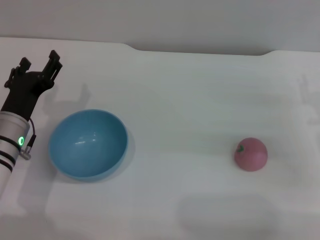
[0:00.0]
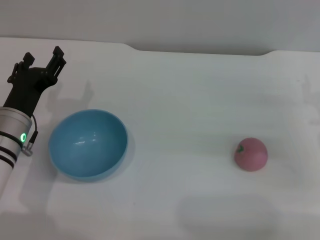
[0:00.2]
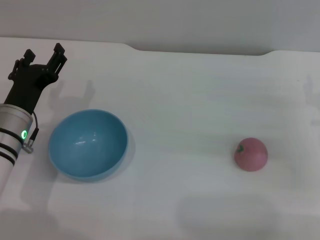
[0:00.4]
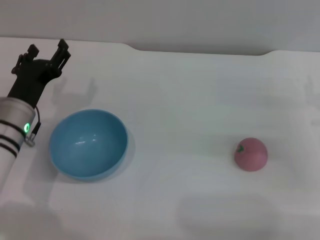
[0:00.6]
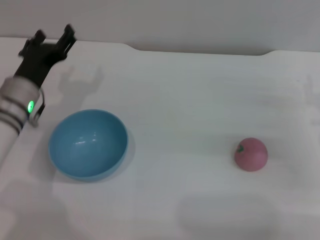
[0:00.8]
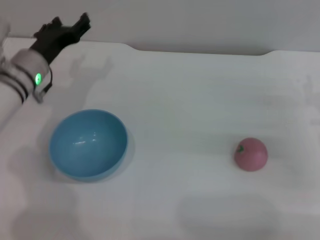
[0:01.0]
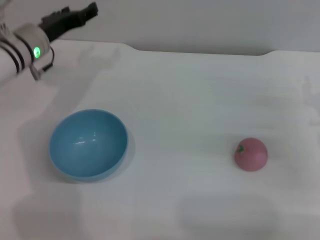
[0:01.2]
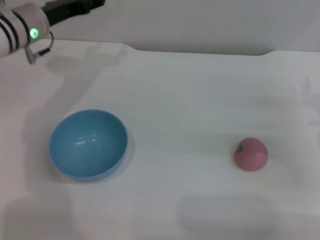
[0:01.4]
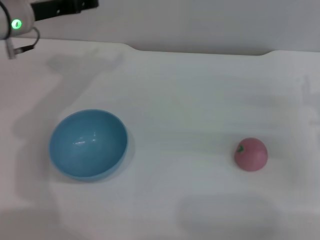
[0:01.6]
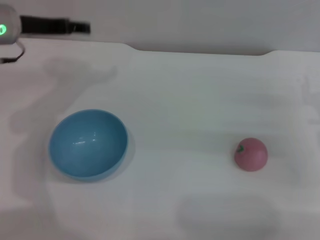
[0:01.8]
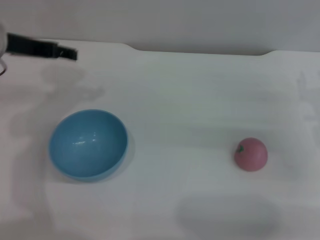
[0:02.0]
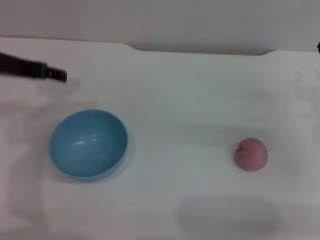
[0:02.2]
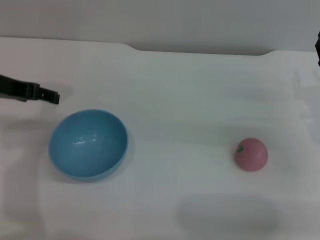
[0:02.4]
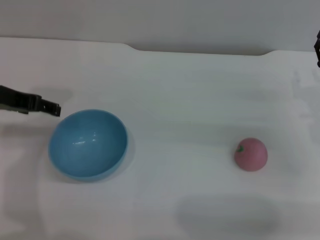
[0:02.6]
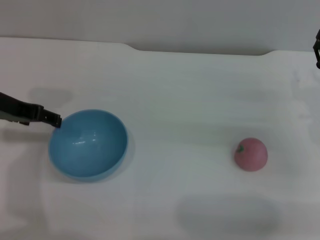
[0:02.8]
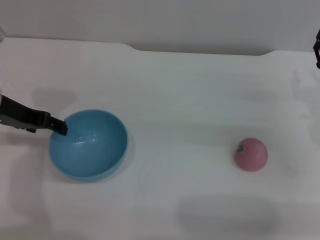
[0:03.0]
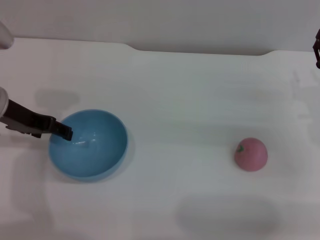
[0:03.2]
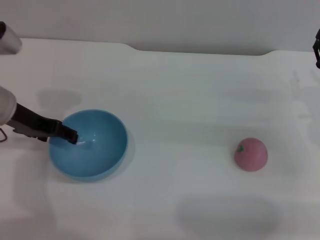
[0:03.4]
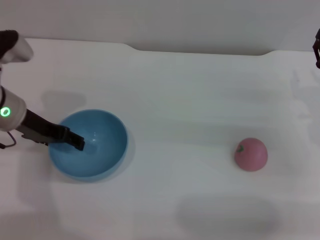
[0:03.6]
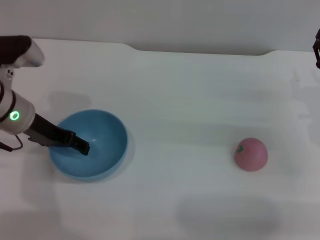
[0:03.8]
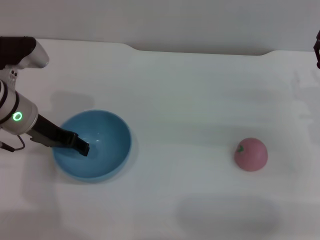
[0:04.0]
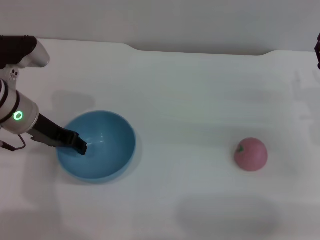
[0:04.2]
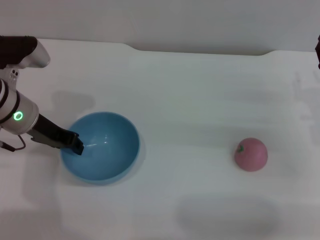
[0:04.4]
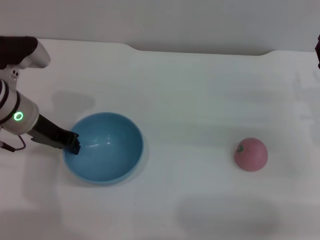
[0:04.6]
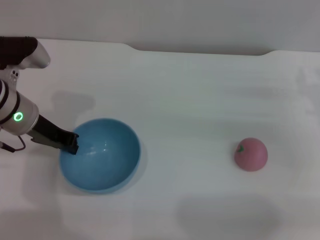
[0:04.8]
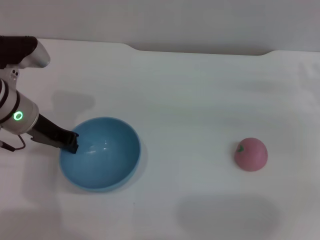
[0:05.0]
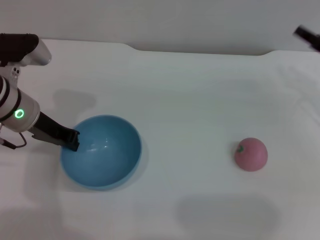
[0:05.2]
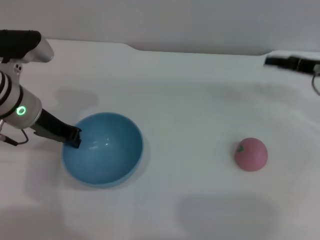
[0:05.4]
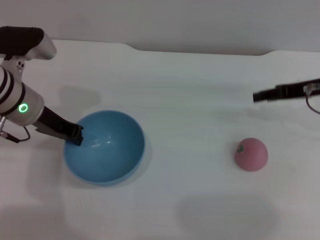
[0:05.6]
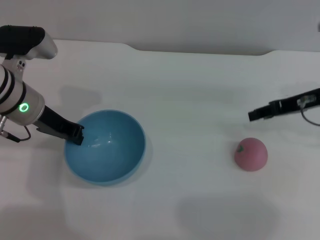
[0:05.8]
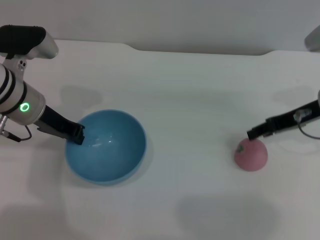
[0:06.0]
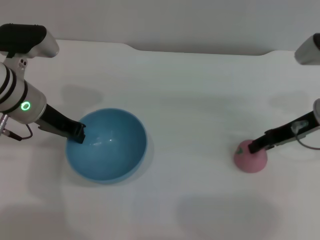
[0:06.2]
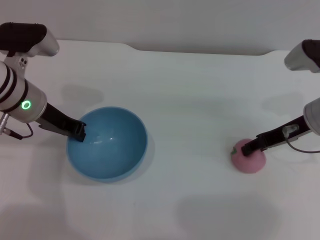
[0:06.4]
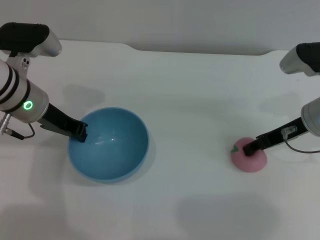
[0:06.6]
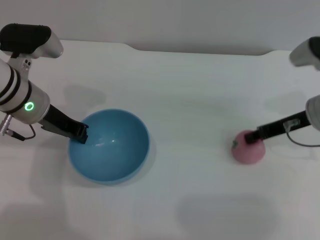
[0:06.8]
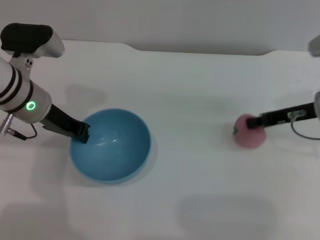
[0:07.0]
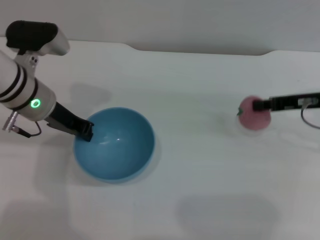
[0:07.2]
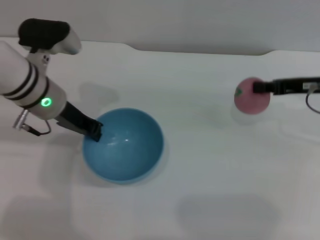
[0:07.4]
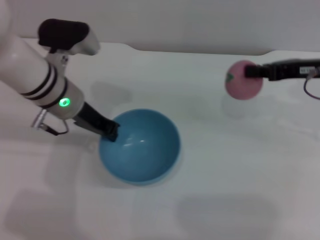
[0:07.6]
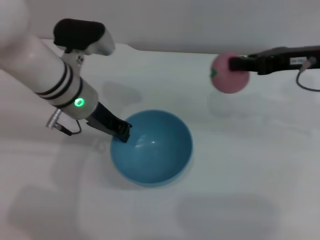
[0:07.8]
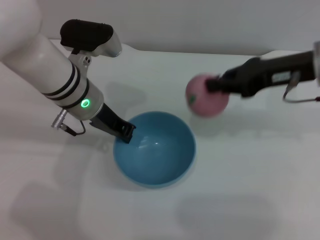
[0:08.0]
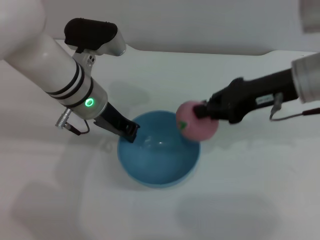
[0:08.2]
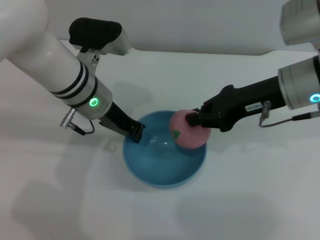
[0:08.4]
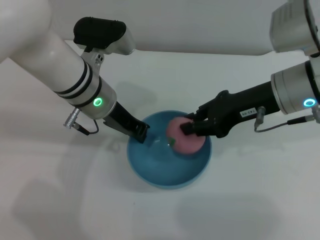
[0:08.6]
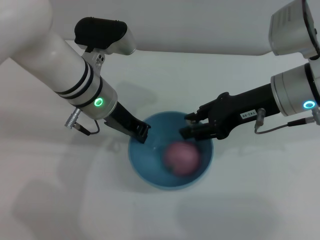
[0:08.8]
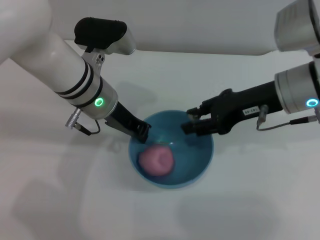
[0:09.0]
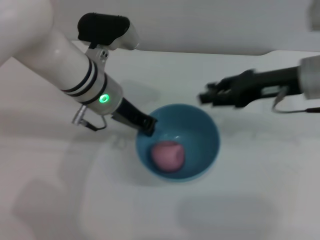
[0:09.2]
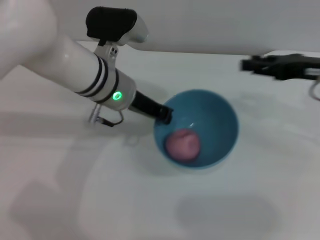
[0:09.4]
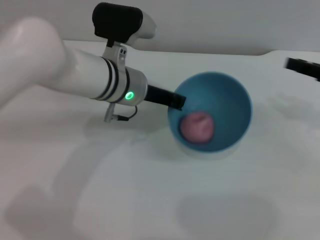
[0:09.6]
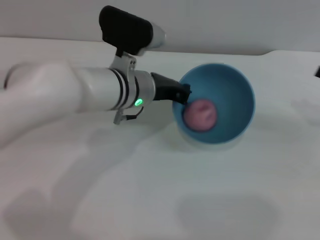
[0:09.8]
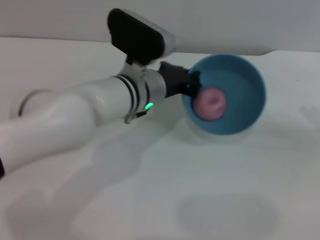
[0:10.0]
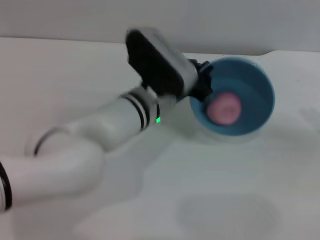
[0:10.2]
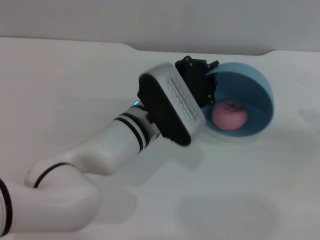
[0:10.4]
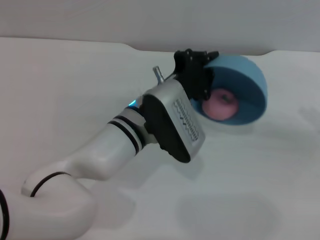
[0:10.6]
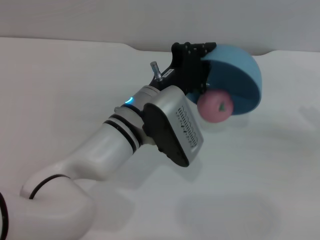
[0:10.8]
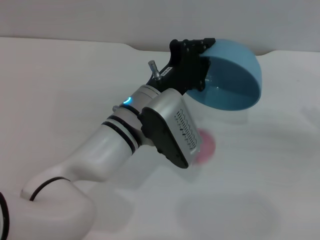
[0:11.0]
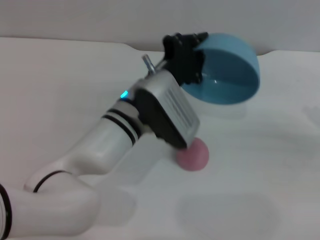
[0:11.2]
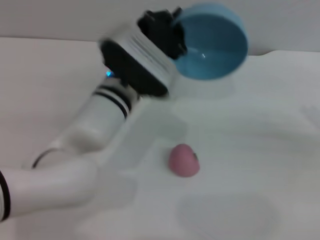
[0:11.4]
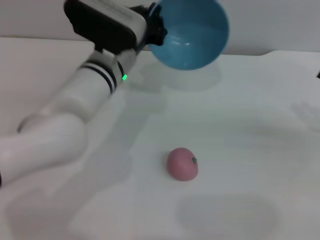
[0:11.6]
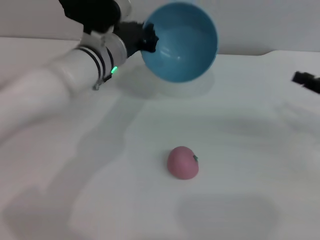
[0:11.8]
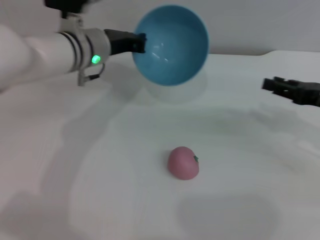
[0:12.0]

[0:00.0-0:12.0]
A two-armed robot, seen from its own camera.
Task of the whole recording: put the peach into the blue bowl and pour it out repeatedly.
Step, 0:00.0 to 0:05.2: Pick up the bowl with the left gripper.
Step, 0:05.4 to 0:07.4: Pick up the peach with the right gripper.
Step, 0:07.6 to 0:09.0: Place the peach into the bowl.
Step, 0:09.2 to 0:11.2: Pour the peach out of bowl.
0:00.0 to 0:01.6: The left gripper shifts approximately 20 cm upward and forward.
0:01.6 to 0:03.0: The left gripper moves backward, approximately 10 cm.
0:03.0 to 0:04.4: The left gripper moves approximately 5 cm, and closes its fingers.
0:04.4 to 0:06.0: The right gripper is displaced upward by about 5 cm. The left gripper closes its fingers.
0:06.0 to 0:07.6: The right gripper closes up, while the left gripper shifts roughly 5 cm to the right.
0:07.6 to 0:09.0: The right gripper is displaced to the left by approximately 10 cm, and opens.
0:09.0 to 0:10.4: The left gripper heads to the right, downward and backward, covering about 10 cm; the right gripper shifts some 20 cm to the right.
0:10.4 to 0:12.0: The left gripper goes some 15 cm to the left, forward and upward. The right gripper travels to the left by about 10 cm.

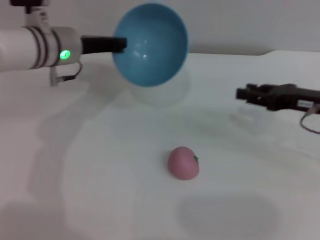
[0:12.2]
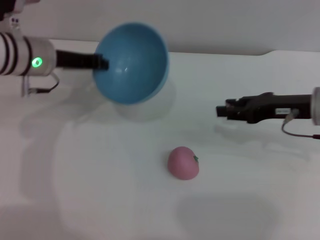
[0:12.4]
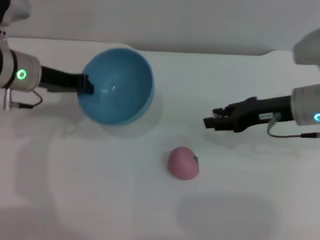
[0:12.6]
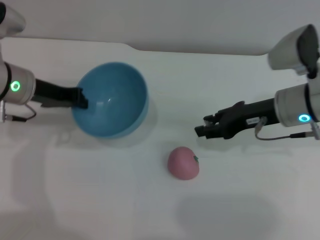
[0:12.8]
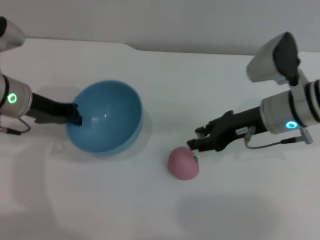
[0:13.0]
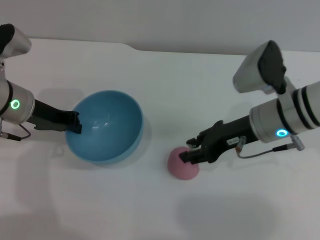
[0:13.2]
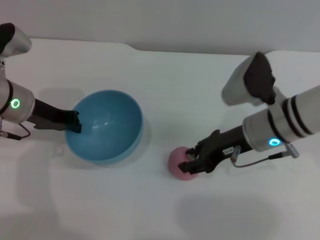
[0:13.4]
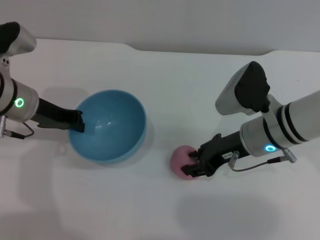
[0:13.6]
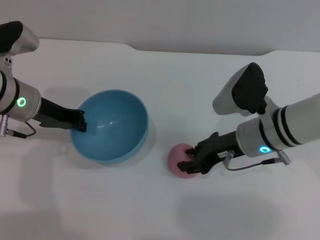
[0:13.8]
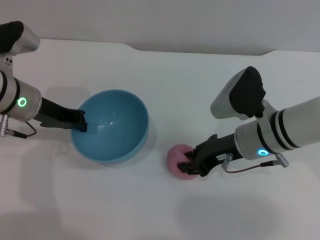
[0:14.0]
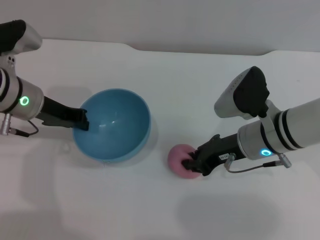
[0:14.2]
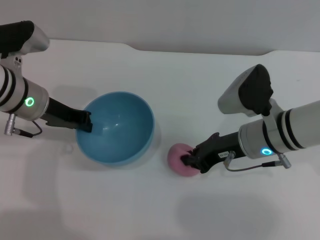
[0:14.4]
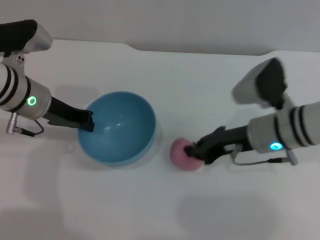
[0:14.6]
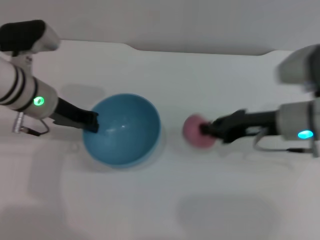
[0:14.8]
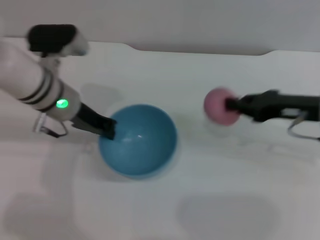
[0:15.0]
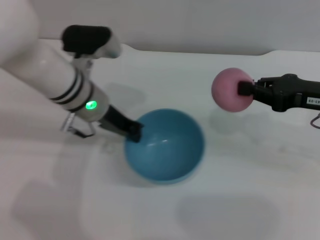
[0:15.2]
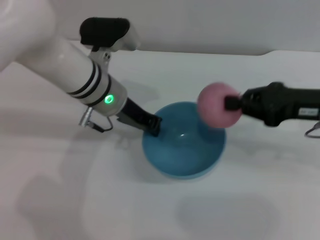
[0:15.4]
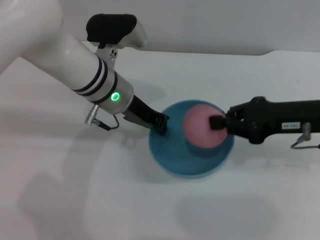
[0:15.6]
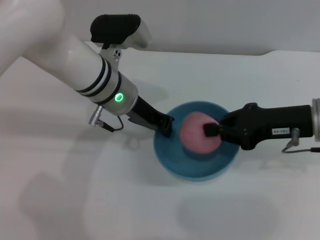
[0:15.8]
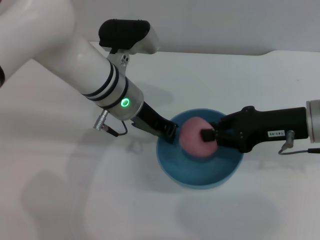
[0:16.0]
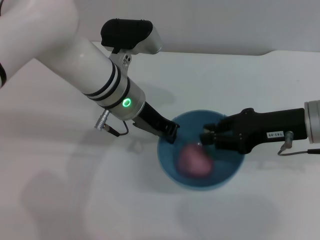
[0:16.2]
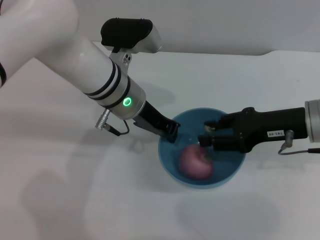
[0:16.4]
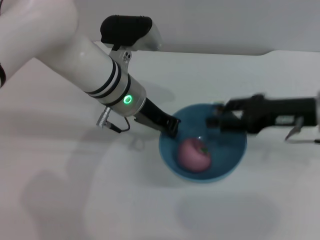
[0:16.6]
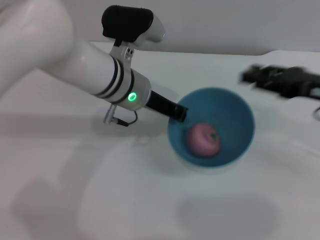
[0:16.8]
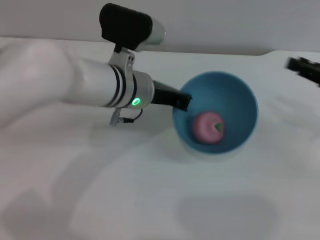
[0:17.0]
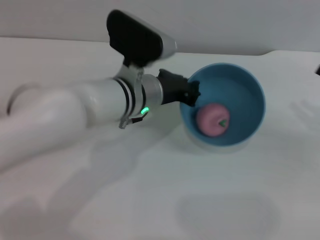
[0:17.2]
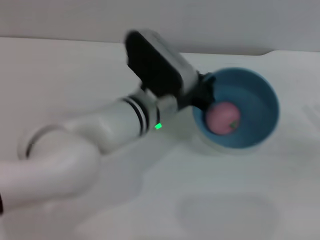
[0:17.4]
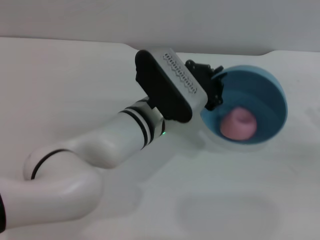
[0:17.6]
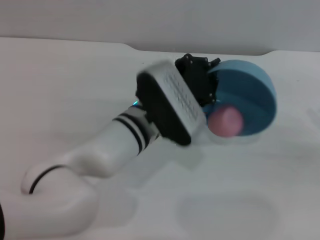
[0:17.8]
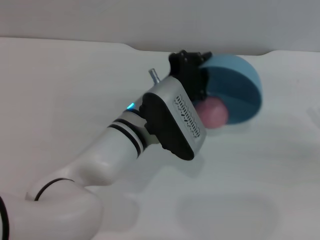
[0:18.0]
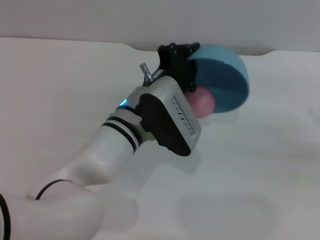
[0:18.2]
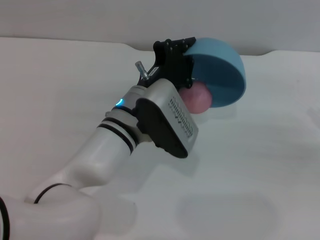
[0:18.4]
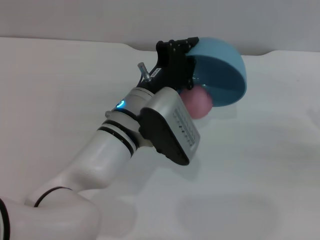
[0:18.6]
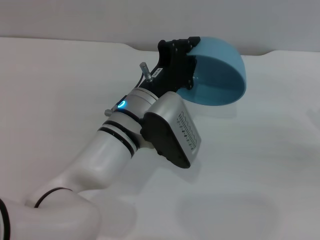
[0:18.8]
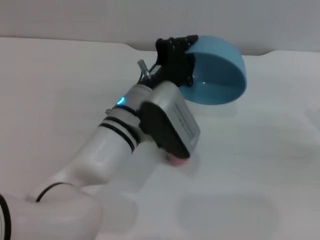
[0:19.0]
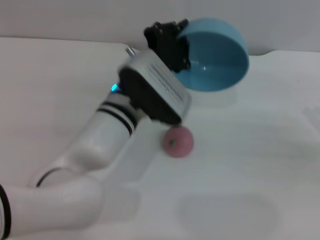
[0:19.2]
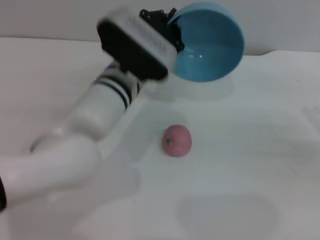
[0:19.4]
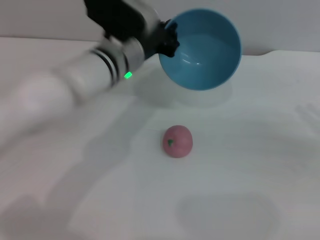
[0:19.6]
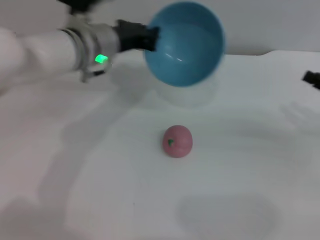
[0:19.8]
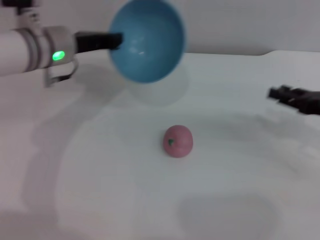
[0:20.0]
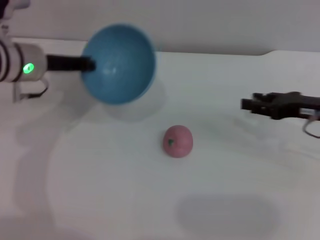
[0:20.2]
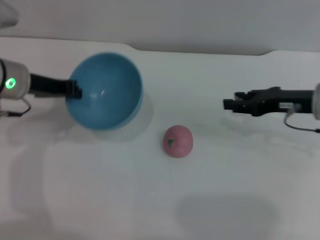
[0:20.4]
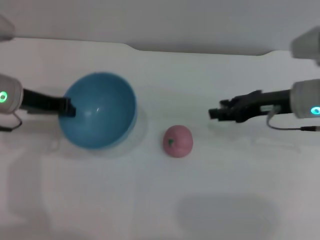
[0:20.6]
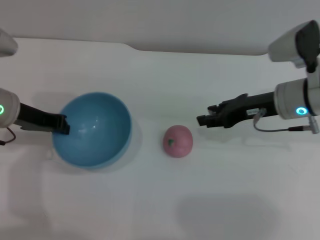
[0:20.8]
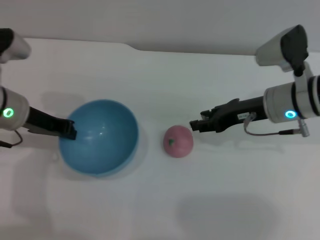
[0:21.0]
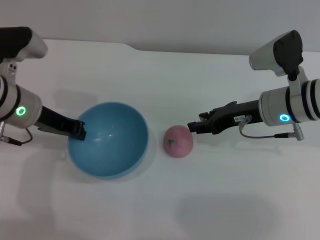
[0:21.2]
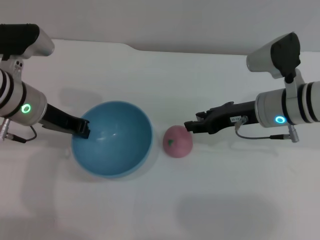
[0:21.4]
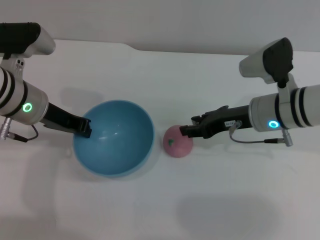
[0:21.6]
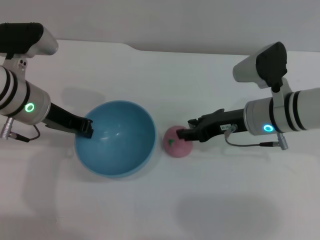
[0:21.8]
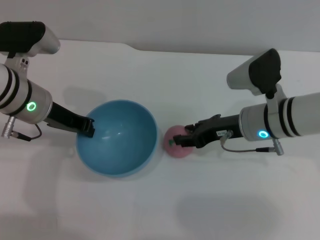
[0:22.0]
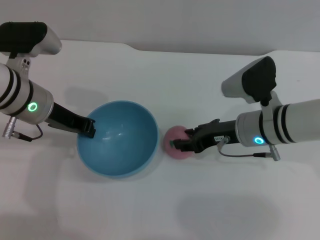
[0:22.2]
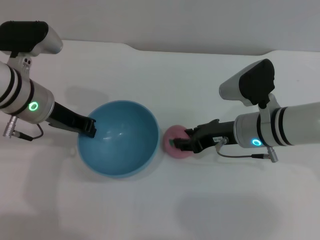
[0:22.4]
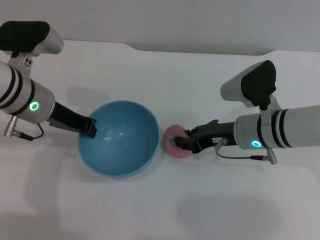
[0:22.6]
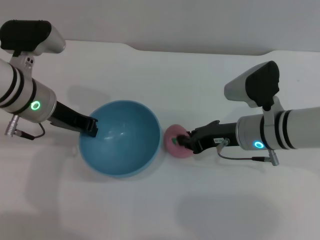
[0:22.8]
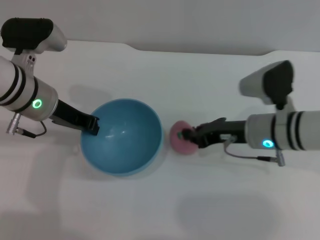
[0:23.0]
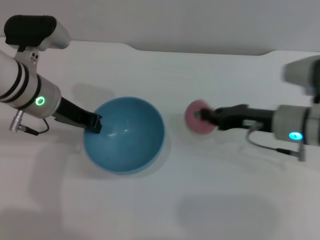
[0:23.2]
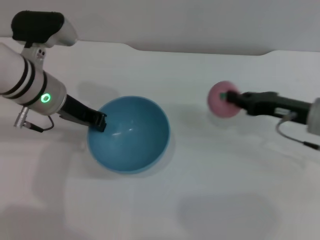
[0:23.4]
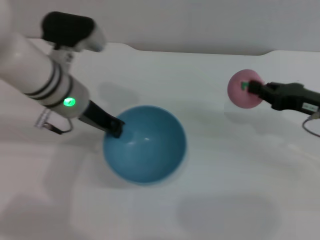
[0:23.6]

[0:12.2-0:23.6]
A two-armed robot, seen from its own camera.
Task of the whole recording: put the peach into the blue bowl and pour it out repeatedly.
Step, 0:12.2 to 0:14.6: Pick up the peach with the right gripper.
Step, 0:15.0 to 0:17.0: Place the peach into the bowl.
Step, 0:17.2 to 0:18.8: Pour the peach out of bowl.
Step, 0:19.2 to 0:23.2: Pick up the peach with the right gripper.
0:12.2 to 0:13.6: The right gripper travels to the left by approximately 15 cm. The left gripper moves backward, about 5 cm.
0:13.6 to 0:15.0: The right gripper moves to the right, approximately 10 cm, and closes, while the left gripper shifts approximately 5 cm to the right.
0:15.0 to 0:16.4: The left gripper shifts some 10 cm to the right. Meanwhile the right gripper opens its fingers.
0:16.4 to 0:17.8: The left gripper goes approximately 5 cm backward. The right gripper is displaced to the right by roughly 15 cm, and opens.
0:17.8 to 0:19.4: The left gripper moves roughly 5 cm.
0:19.4 to 0:20.8: The left gripper is displaced to the left by some 20 cm. Meanwhile the right gripper moves to the left and forward, roughly 20 cm.
0:20.8 to 0:22.2: The left gripper ends up approximately 5 cm from where it was. The right gripper changes place by roughly 5 cm.
0:22.2 to 0:23.6: The right gripper is displaced to the right by approximately 15 cm, and closes up, while the left gripper heads to the right, covering some 5 cm.
